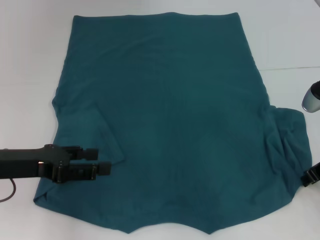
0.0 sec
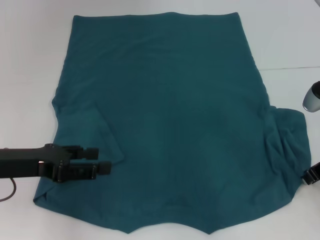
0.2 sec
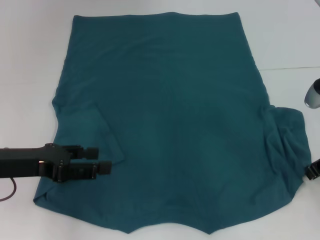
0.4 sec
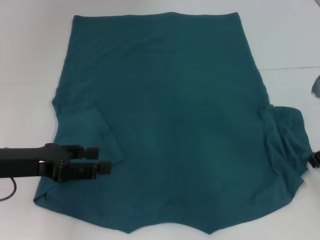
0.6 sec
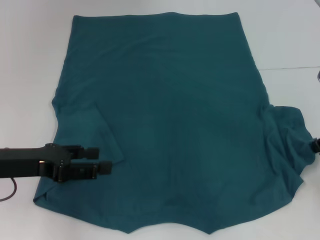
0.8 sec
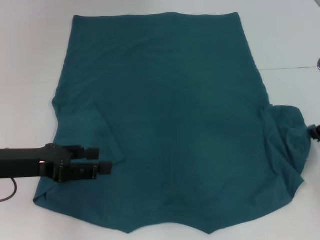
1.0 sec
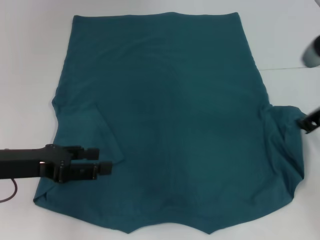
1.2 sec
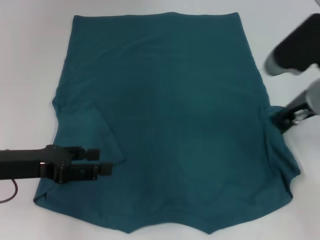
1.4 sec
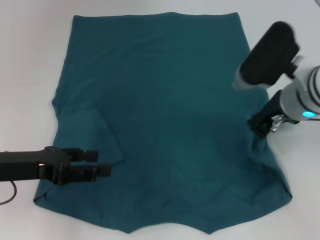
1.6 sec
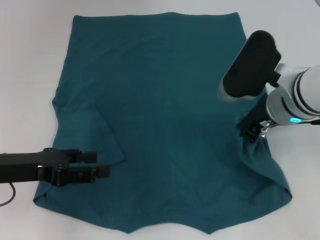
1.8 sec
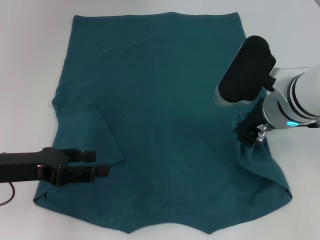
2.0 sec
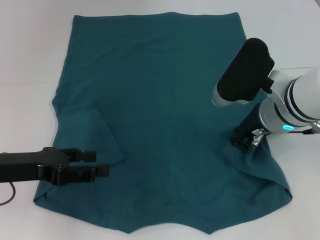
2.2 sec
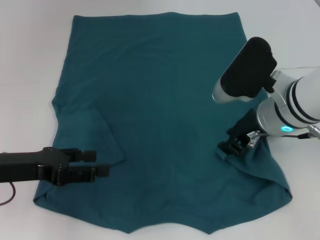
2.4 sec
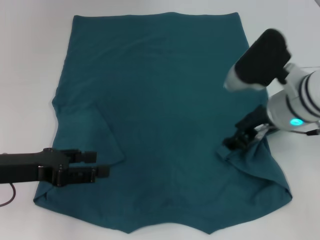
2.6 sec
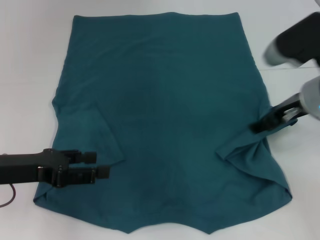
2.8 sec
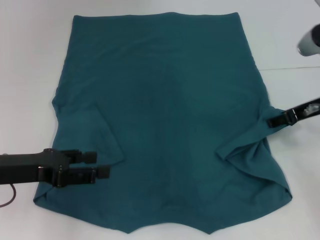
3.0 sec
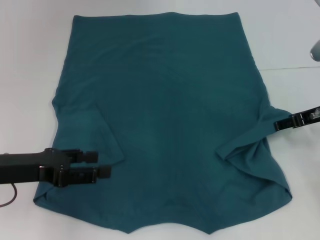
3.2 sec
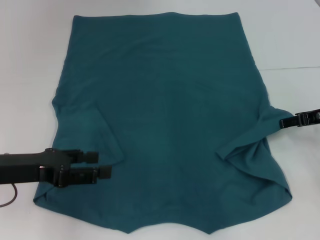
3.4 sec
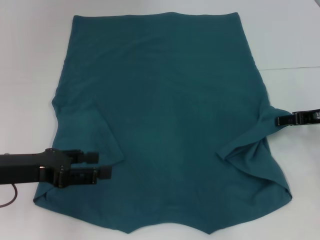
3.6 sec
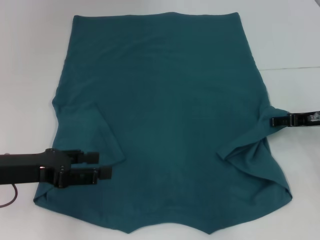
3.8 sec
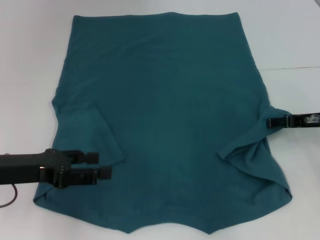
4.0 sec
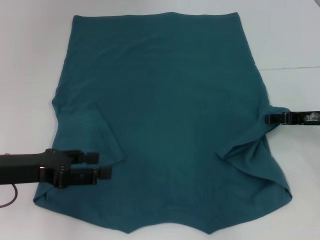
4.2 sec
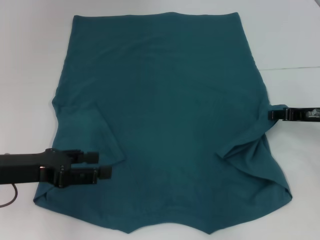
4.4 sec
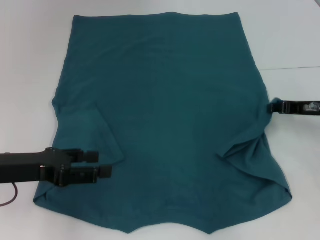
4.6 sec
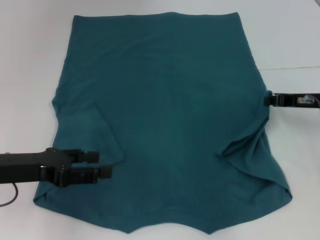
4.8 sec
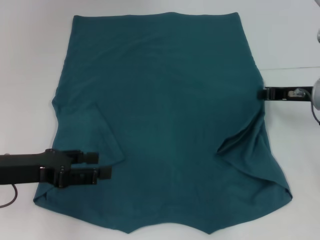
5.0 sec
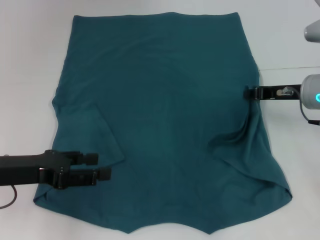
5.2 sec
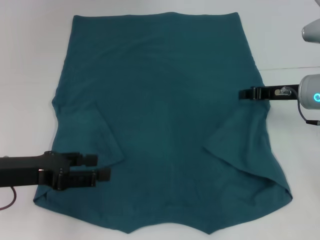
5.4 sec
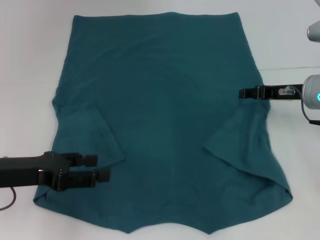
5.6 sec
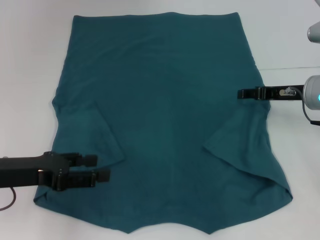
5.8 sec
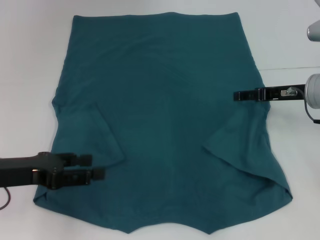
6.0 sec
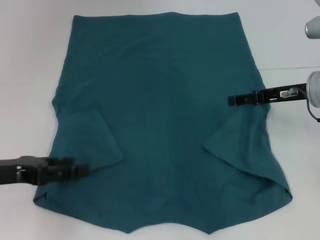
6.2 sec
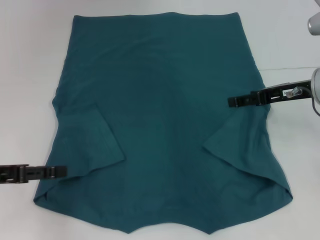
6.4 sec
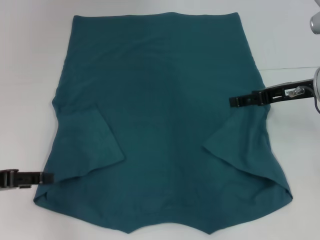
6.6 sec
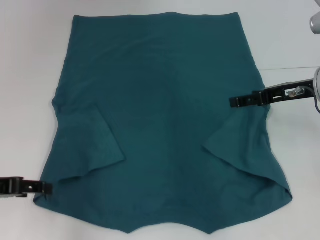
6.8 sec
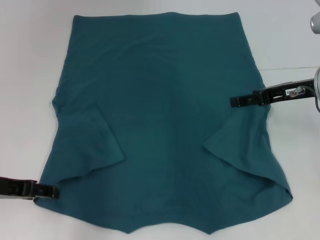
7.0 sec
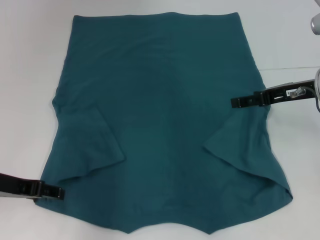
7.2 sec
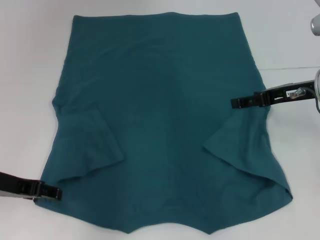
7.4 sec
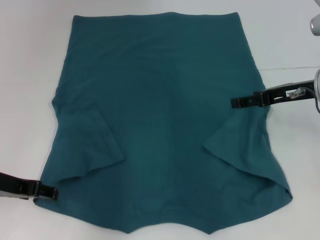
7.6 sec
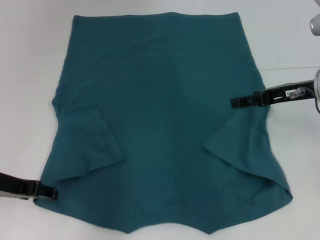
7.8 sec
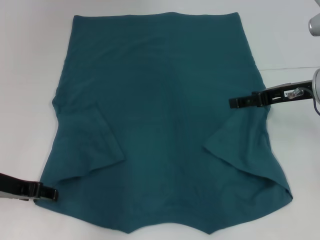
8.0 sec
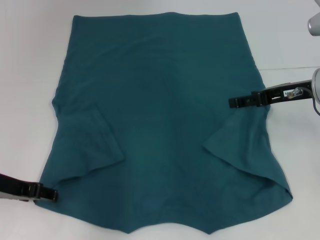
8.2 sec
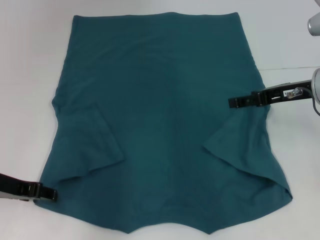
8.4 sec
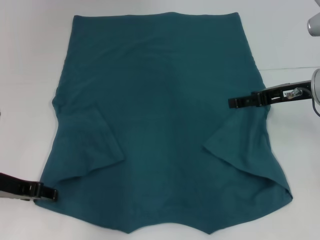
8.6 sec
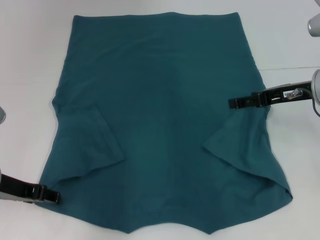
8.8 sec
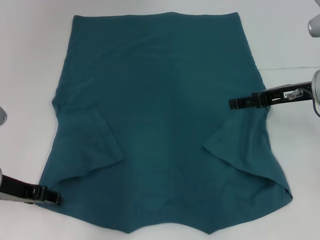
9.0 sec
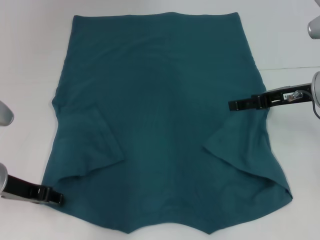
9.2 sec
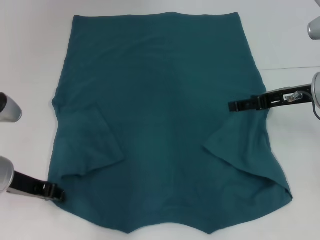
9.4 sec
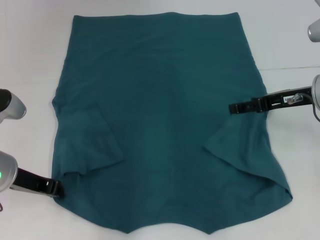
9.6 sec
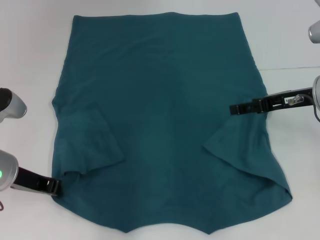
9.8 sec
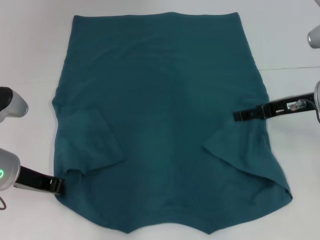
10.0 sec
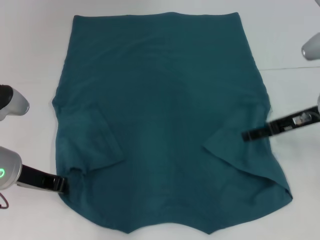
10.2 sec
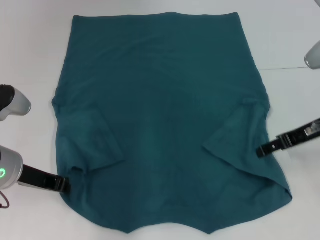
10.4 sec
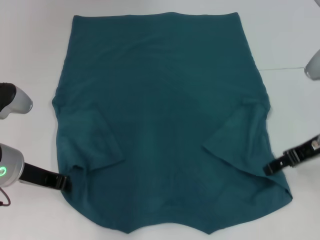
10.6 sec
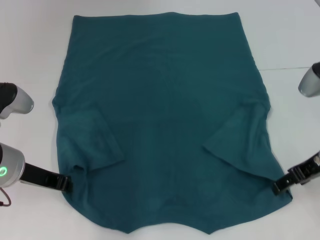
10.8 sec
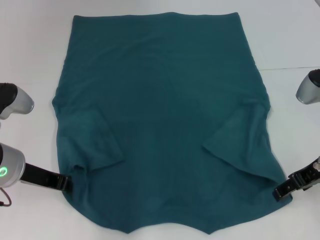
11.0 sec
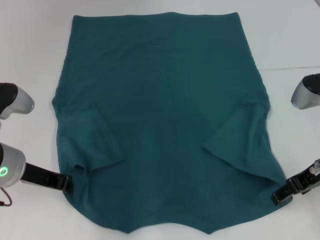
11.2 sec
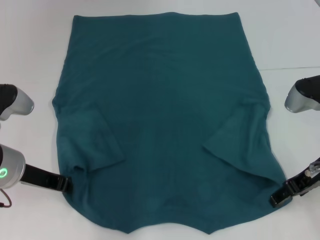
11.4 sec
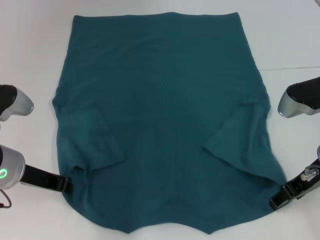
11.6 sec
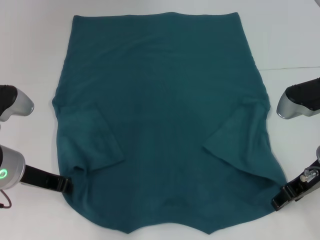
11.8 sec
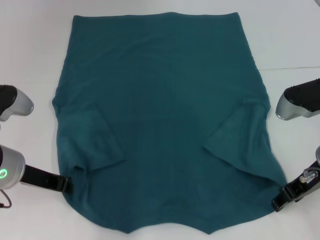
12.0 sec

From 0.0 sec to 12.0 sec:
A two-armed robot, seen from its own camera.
Step, from 0.0 sec to 5.6 sec: Fold the bottom right sleeve to the right.
Step, from 5.8 sec to 9.8 sec: Grab the bottom left corner with your left hand.
From 0.0 sec to 1.6 sec: The right gripper moves to the left and upward, about 10 cm, and closes its fingers.
From 1.6 sec to 3.0 sec: The right gripper goes roughly 10 cm to the right, and opens up.
From 3.0 sec to 4.4 sec: The right gripper is displaced downward by about 5 cm.
From 4.4 sec to 6.0 sec: The right gripper ends up approximately 5 cm from where it was, and closes, then reopens.
From 7.6 sec to 9.0 sec: The grippers move only a little.
From 9.0 sec to 10.4 sec: The left gripper closes.
From 10.4 sec to 12.0 sec: The right gripper moves about 5 cm.

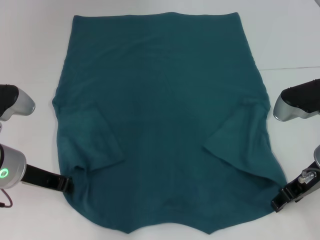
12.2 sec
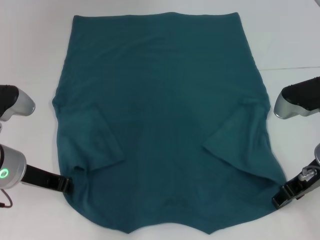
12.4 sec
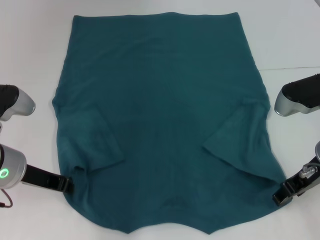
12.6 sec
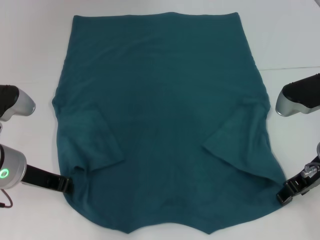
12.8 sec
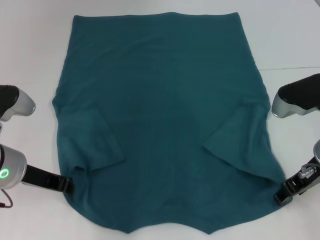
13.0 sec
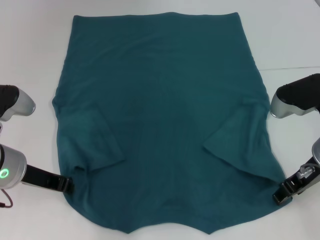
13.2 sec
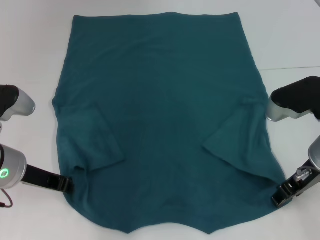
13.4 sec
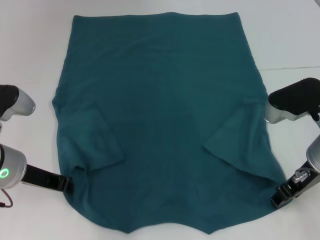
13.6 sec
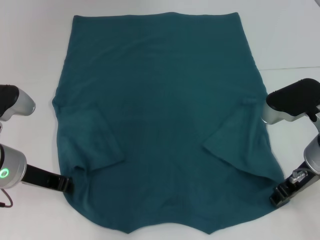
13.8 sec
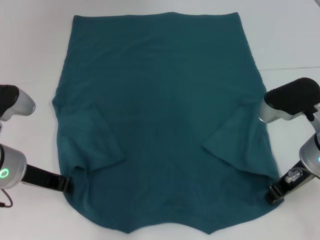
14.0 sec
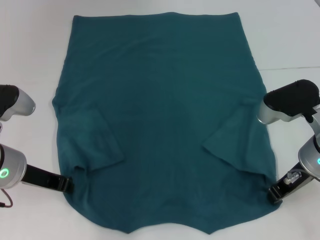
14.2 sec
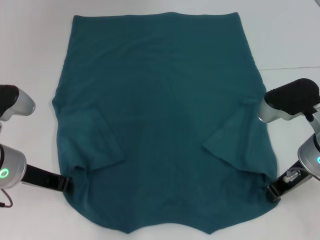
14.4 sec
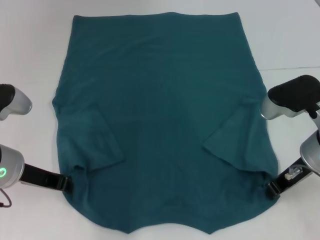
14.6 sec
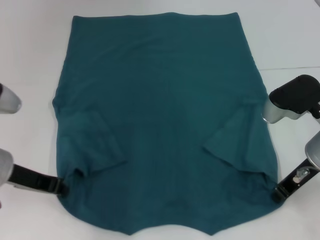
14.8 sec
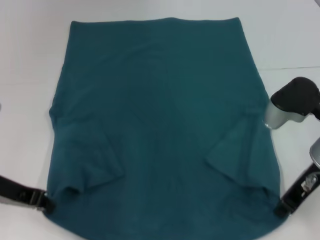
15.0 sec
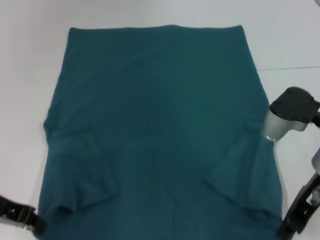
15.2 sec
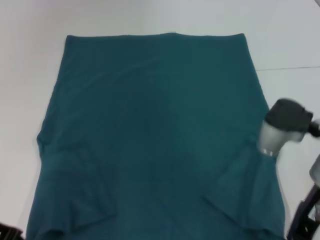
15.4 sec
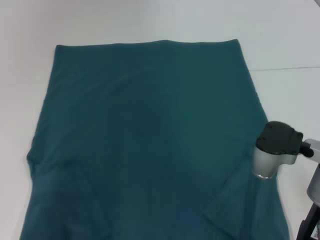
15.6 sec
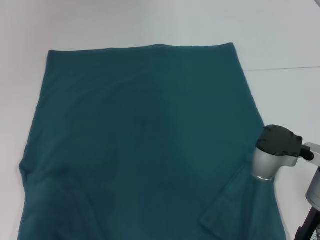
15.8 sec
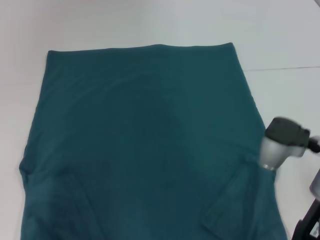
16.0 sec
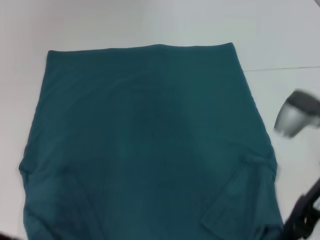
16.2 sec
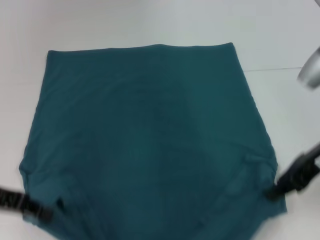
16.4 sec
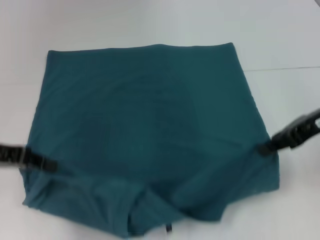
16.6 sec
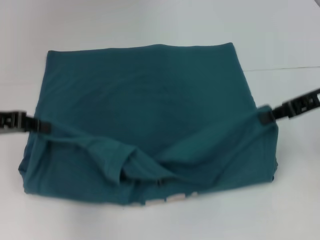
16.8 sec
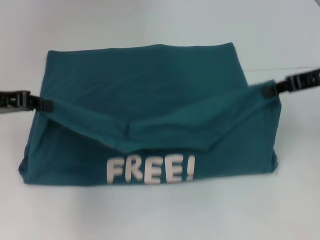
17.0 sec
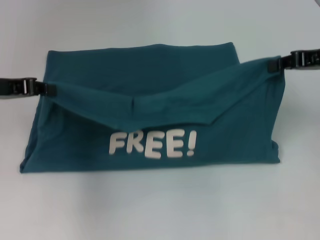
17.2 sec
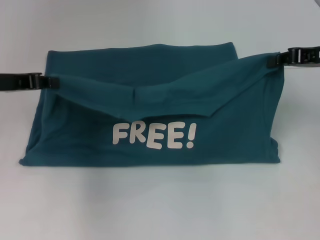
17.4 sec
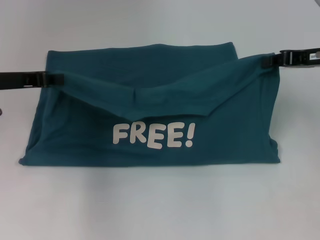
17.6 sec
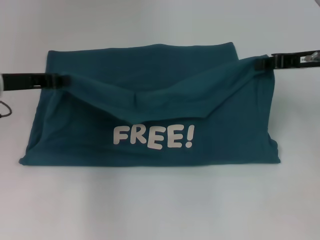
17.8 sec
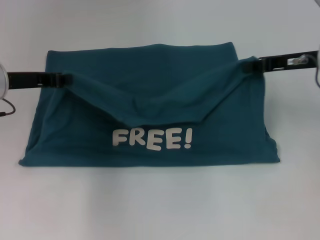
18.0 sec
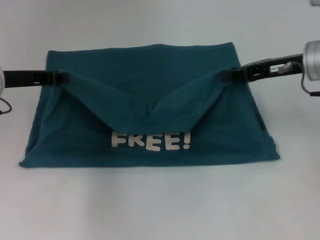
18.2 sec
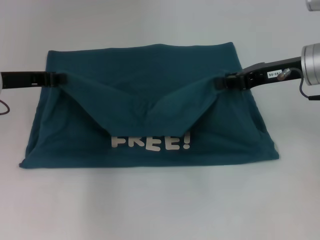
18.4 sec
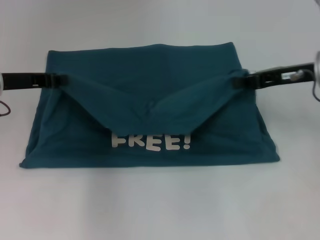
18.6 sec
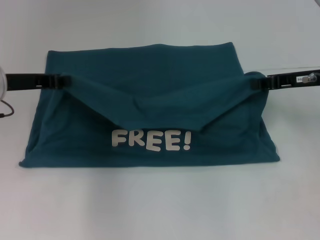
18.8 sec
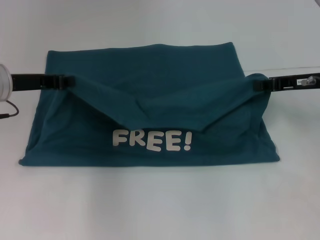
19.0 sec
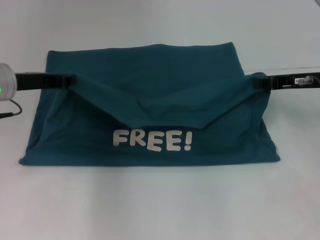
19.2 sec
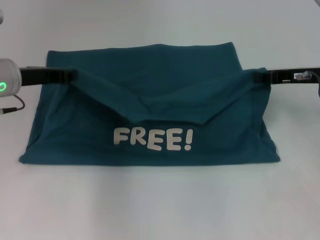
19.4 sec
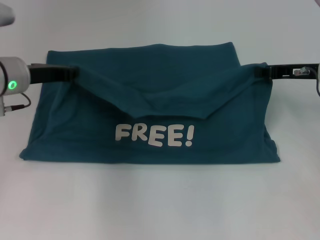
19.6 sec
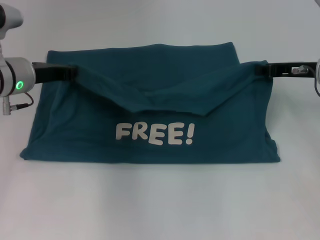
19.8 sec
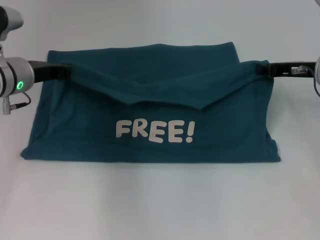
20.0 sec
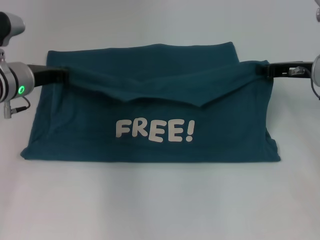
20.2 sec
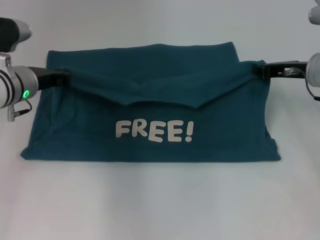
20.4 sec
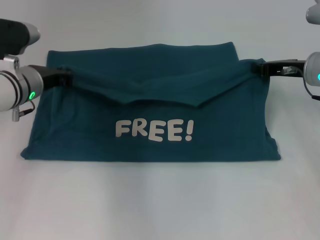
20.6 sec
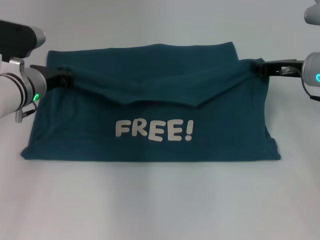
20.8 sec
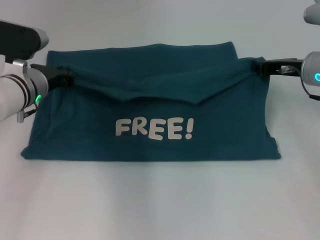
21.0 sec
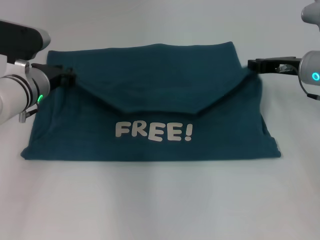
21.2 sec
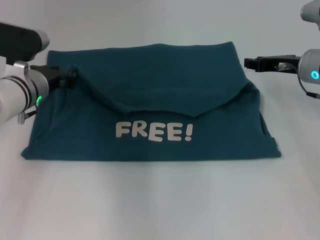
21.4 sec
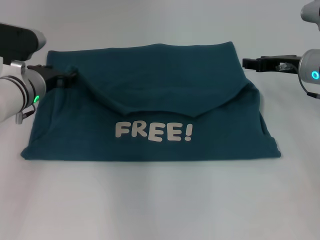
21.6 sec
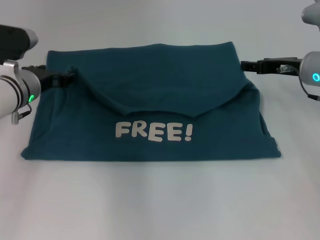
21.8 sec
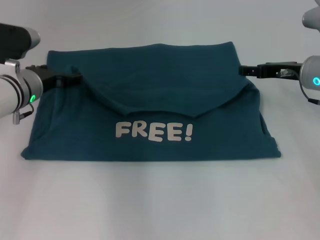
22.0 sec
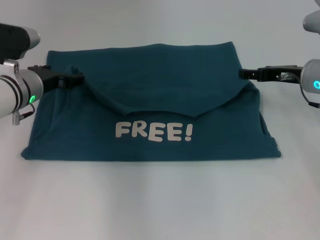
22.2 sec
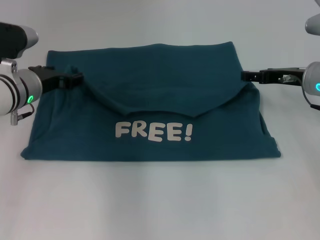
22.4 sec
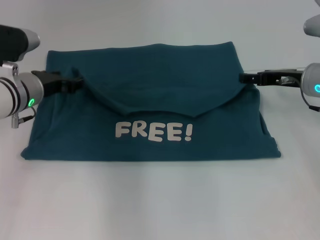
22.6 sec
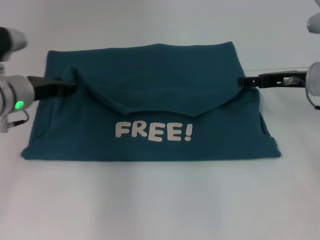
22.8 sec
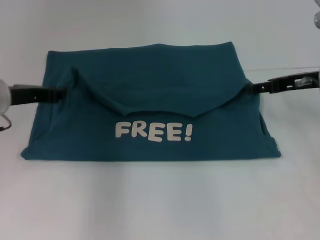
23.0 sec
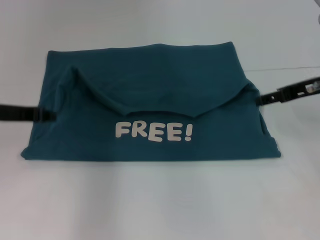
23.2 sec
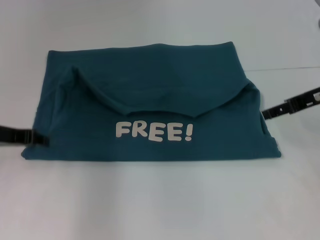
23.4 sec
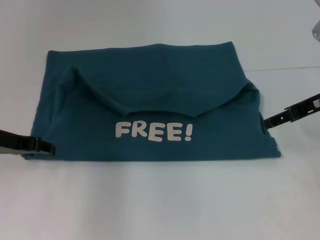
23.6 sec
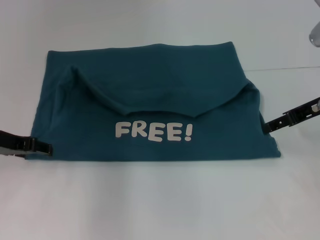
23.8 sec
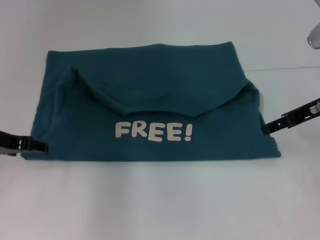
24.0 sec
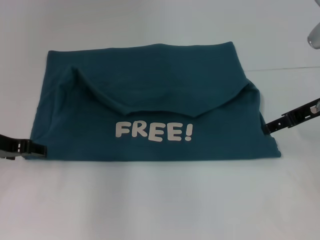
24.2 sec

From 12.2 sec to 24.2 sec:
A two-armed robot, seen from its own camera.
Step, from 12.2 sec to 14.4 sec: Grab the bottom right corner with your right hand.
Step, from 14.6 sec to 22.6 sec: Fold the clothes to the left.
Step, from 14.6 sec to 22.6 sec: Fold the clothes to the right.
From 12.2 sec to 13.8 sec: The grippers move only a little.
From 13.8 sec to 15.2 sec: The right gripper closes up; the left gripper shifts approximately 5 cm to the left.
From 15.2 sec to 16.6 sec: The left gripper changes place by about 5 cm. The right gripper moves upward and to the right, about 10 cm.
From 16.6 sec to 18.2 sec: The two grippers go some 5 cm forward.
From 18.2 sec to 19.8 sec: The right gripper moves about 5 cm. Meanwhile the left gripper changes place by roughly 5 cm.
From 19.8 sec to 21.2 sec: There are only small adjustments of the grippers.
From 21.2 sec to 22.6 sec: The right gripper opens. The left gripper opens up.
From 22.6 sec to 24.2 sec: The left gripper is displaced to the left and backward by roughly 10 cm, and closes, then opens again, while the right gripper moves upward and backward, roughly 10 cm.
